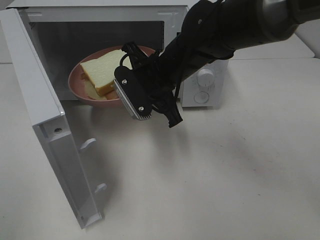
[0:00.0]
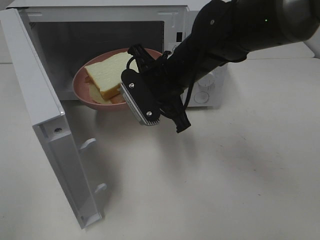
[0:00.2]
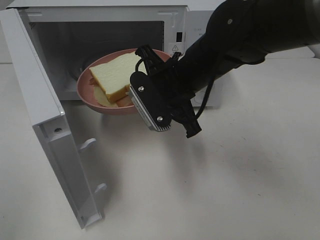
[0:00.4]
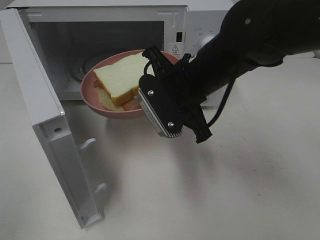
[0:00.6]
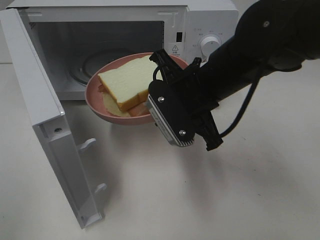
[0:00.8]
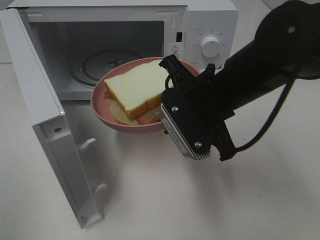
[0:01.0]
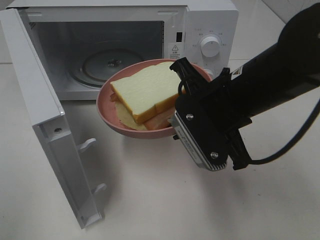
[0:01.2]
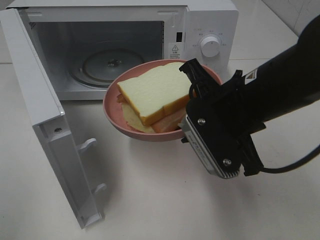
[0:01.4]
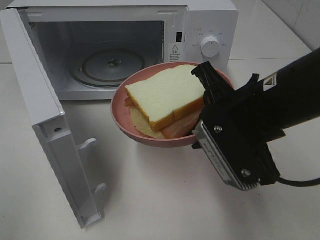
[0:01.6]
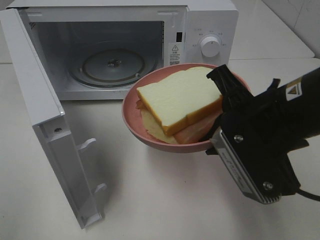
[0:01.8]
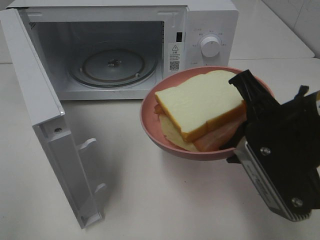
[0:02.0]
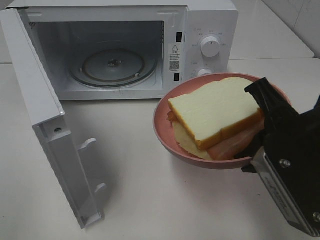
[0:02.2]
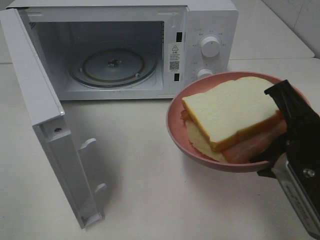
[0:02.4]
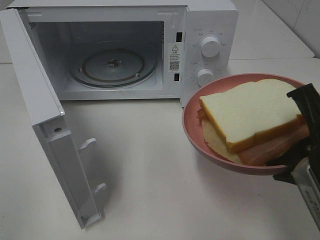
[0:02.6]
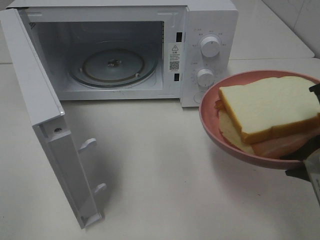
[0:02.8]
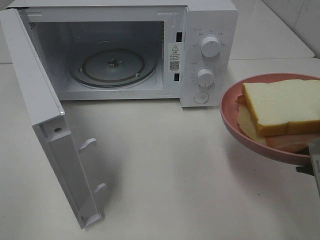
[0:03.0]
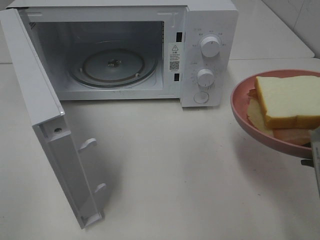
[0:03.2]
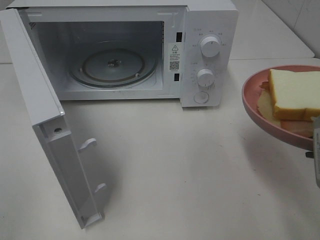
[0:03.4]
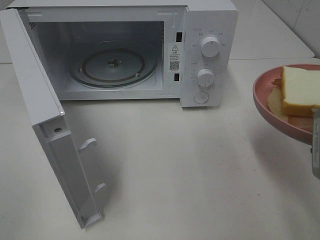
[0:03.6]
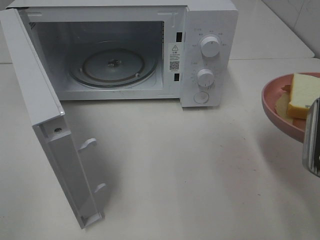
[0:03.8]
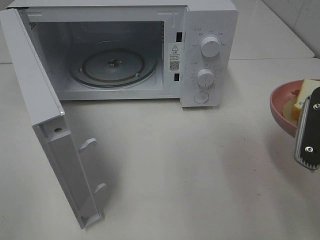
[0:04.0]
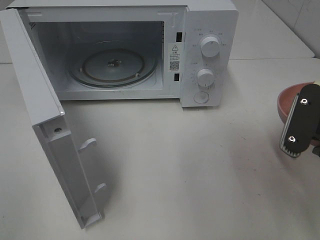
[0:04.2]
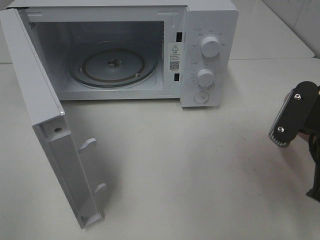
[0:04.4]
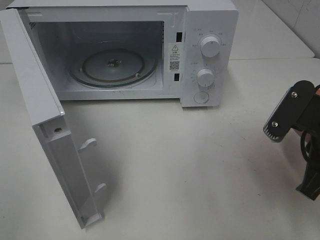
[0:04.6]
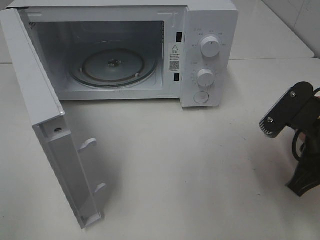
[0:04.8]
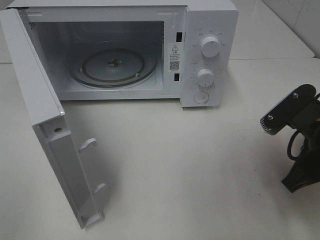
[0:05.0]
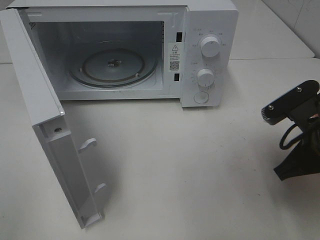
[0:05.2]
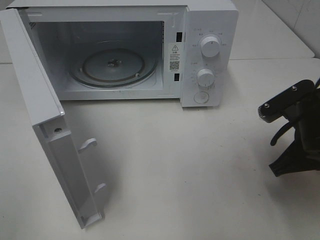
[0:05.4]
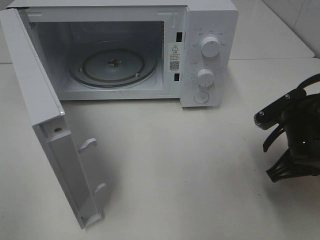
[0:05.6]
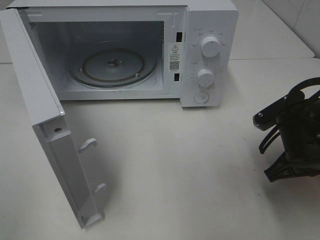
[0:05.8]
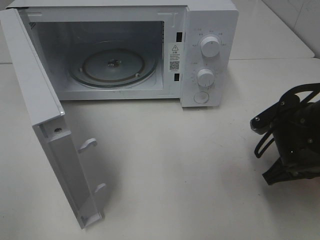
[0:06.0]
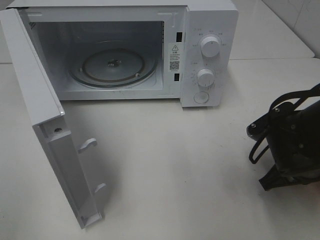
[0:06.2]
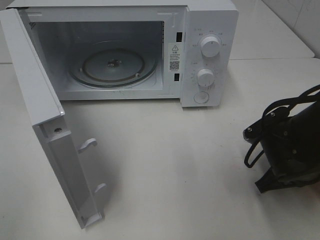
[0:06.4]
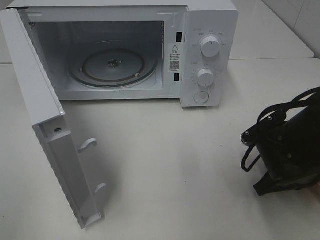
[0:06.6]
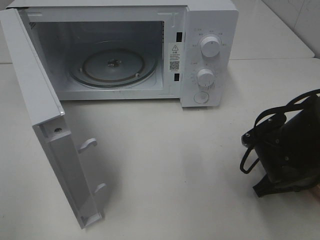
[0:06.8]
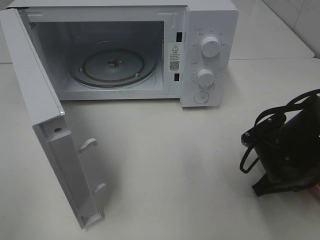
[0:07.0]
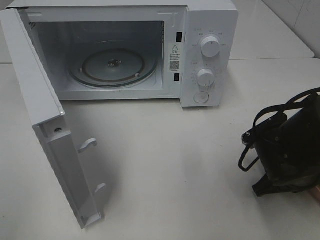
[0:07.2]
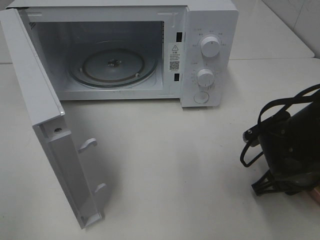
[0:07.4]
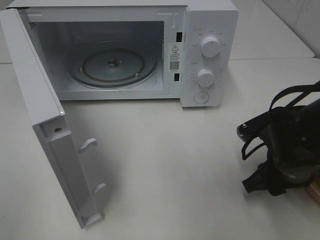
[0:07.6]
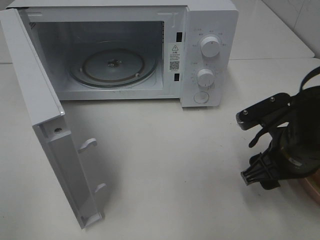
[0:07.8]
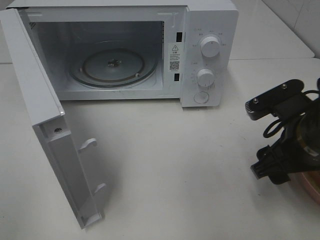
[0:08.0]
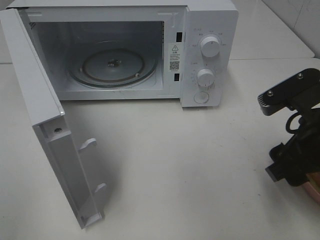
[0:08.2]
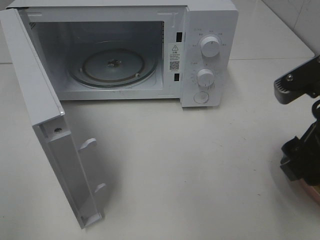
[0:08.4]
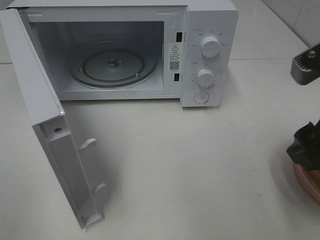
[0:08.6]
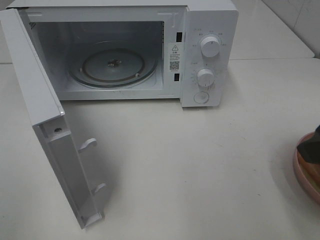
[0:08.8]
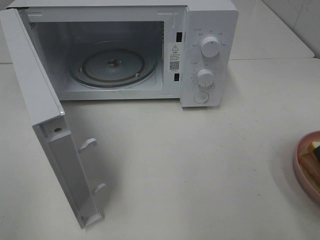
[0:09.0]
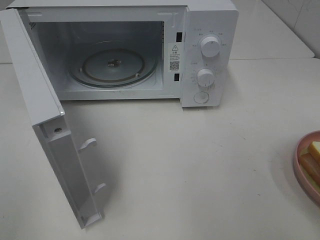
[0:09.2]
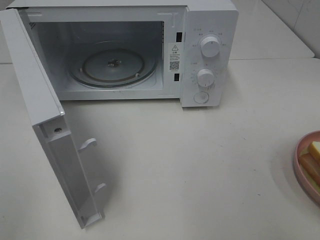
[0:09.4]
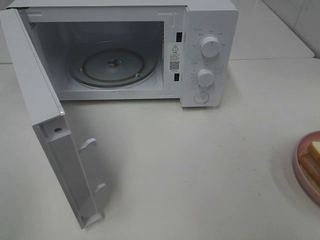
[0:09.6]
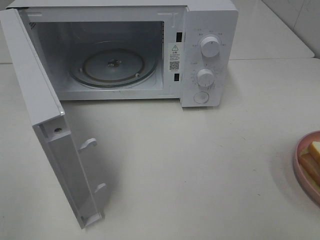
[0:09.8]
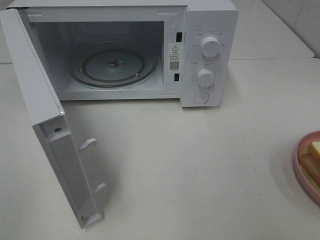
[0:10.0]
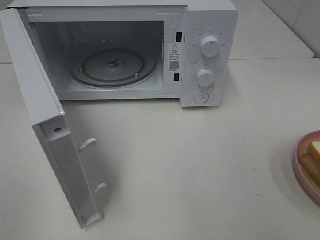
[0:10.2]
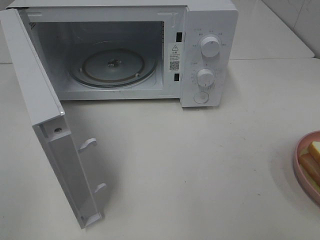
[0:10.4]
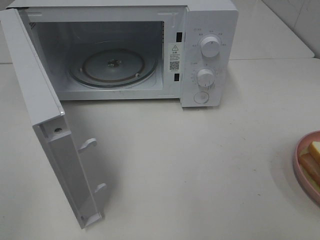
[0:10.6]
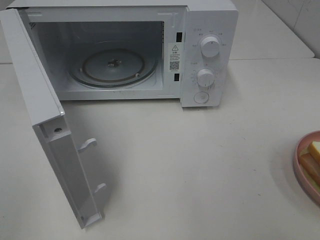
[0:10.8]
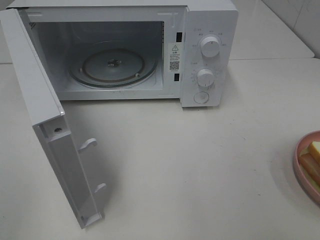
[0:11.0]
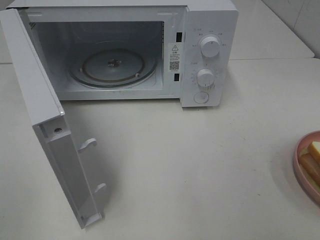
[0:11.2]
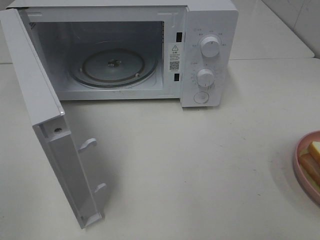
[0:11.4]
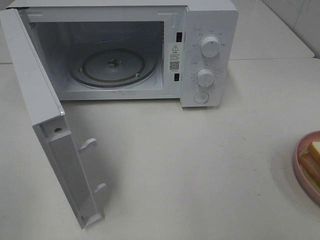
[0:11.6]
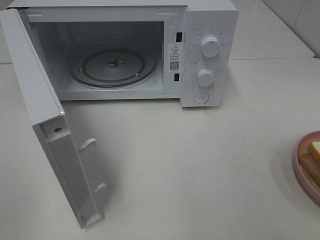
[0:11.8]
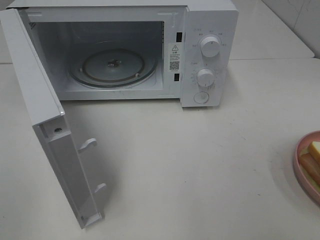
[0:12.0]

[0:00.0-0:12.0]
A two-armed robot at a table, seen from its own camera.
Task of the whole recording: Heat Sandwich.
Step, 0:00.0 to 0:08.0: Right hand: place the plate on the table.
0:00.0 to 0:01.6: The right gripper moves backward and to the right, roughly 15 cm.
0:01.6 to 0:03.0: The right gripper heads to the right and backward, covering about 10 cm.
0:03.0 to 0:04.4: The right gripper moves approximately 5 cm.
0:04.4 to 0:06.0: The right gripper is displaced downward by approximately 10 cm.
0:06.0 to 0:07.6: The right gripper opens its fingers.
0:07.6 to 0:09.0: The right gripper is displaced upward and backward by approximately 20 cm.
0:10.4 to 0:12.0: The two grippers keep their place.

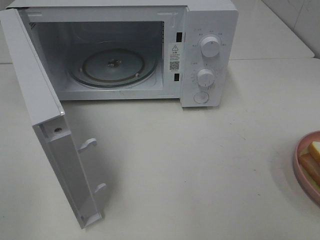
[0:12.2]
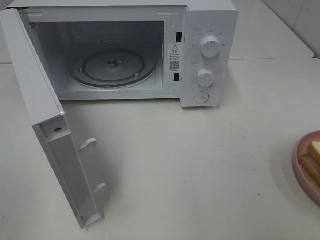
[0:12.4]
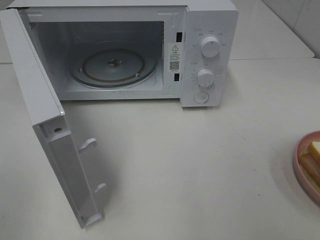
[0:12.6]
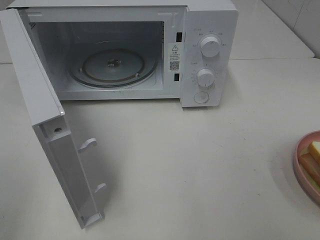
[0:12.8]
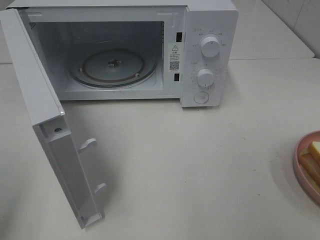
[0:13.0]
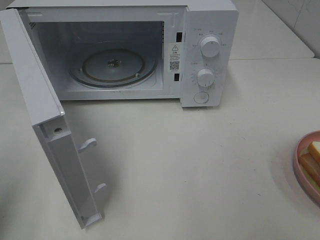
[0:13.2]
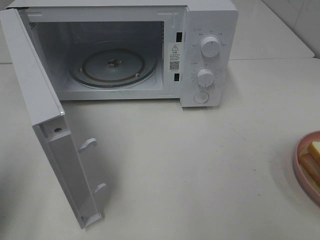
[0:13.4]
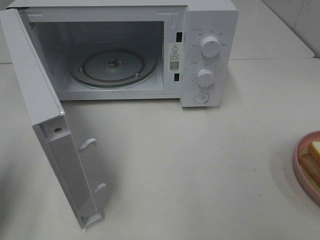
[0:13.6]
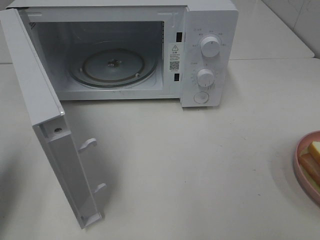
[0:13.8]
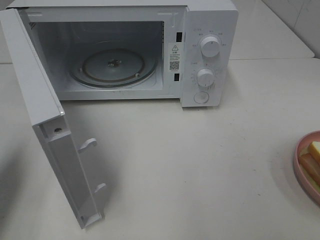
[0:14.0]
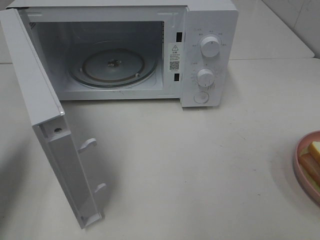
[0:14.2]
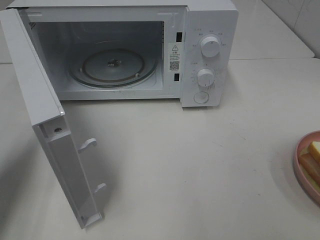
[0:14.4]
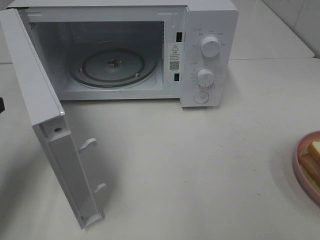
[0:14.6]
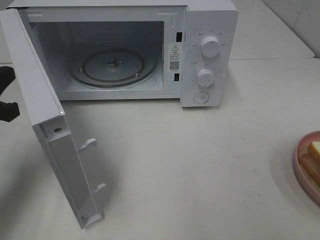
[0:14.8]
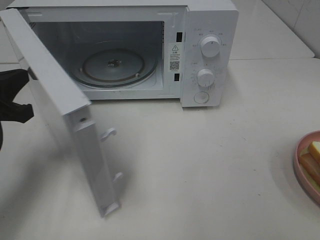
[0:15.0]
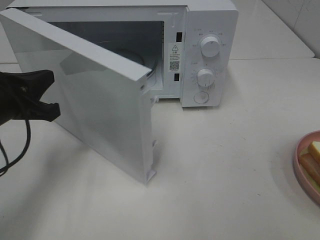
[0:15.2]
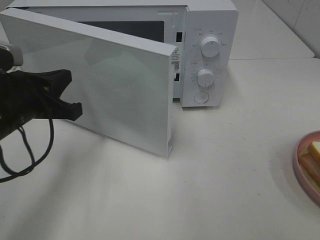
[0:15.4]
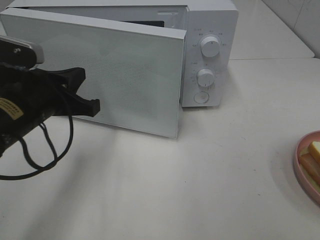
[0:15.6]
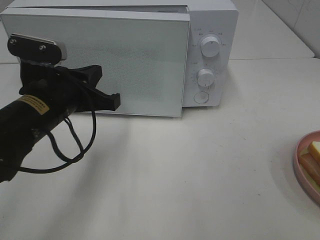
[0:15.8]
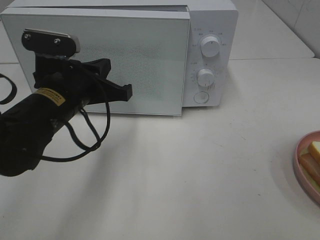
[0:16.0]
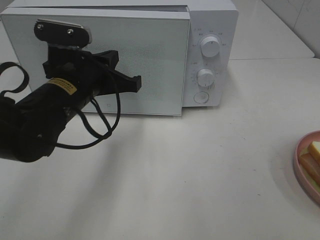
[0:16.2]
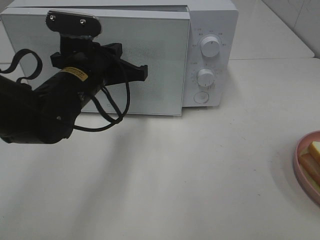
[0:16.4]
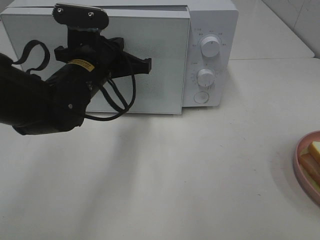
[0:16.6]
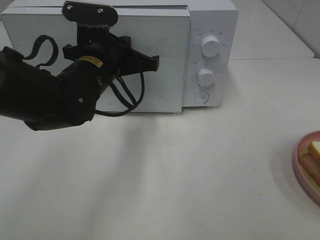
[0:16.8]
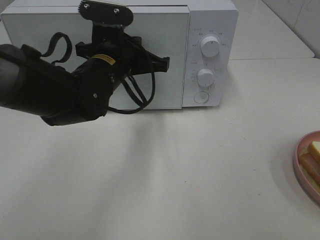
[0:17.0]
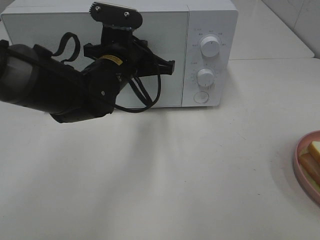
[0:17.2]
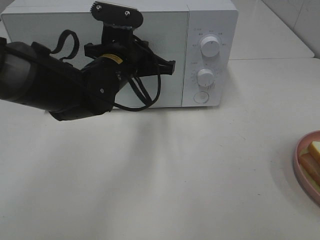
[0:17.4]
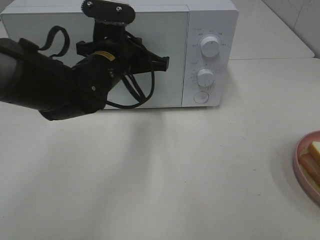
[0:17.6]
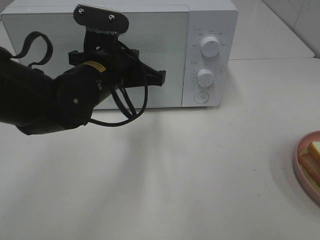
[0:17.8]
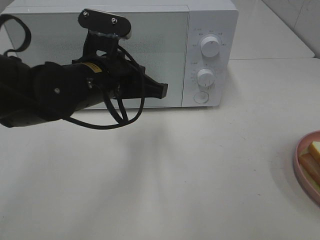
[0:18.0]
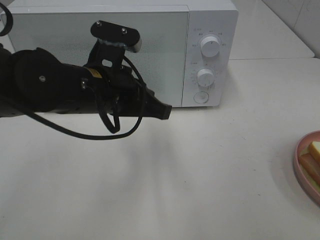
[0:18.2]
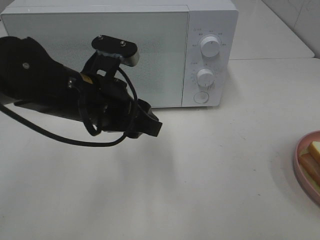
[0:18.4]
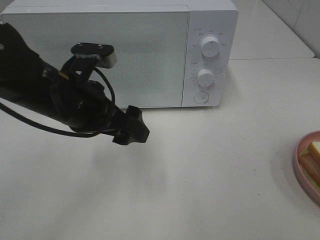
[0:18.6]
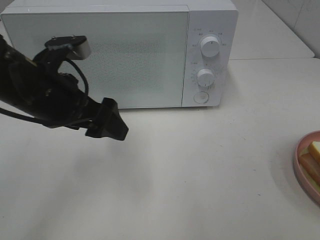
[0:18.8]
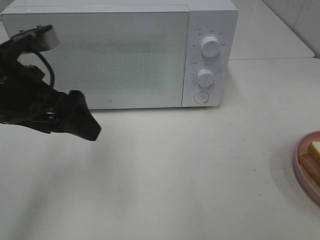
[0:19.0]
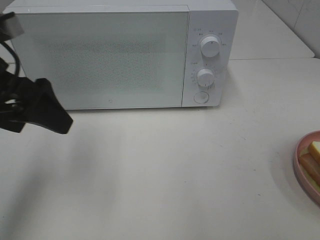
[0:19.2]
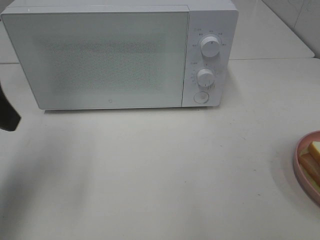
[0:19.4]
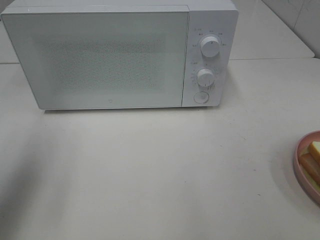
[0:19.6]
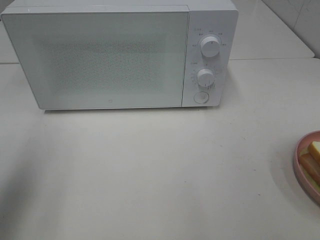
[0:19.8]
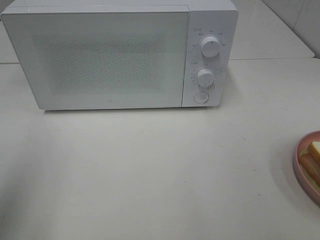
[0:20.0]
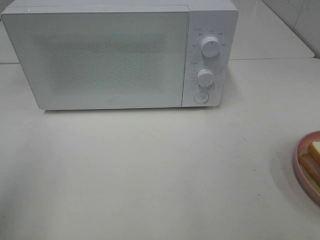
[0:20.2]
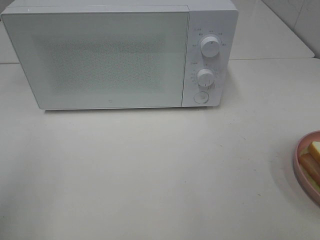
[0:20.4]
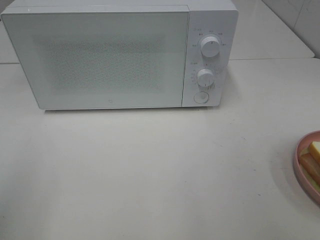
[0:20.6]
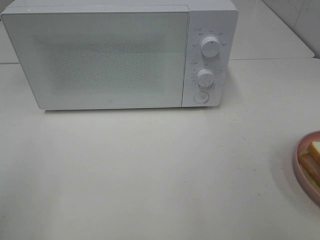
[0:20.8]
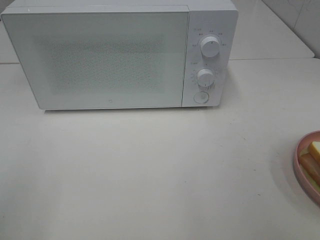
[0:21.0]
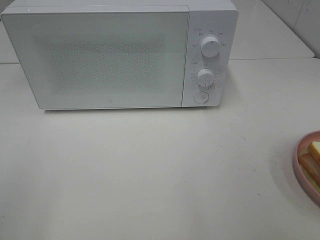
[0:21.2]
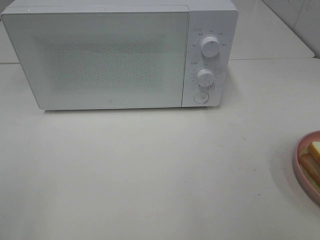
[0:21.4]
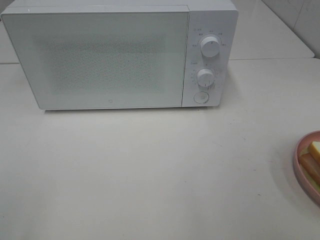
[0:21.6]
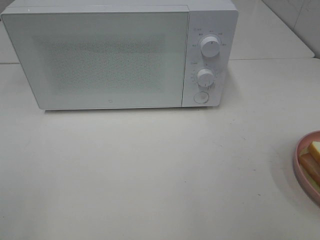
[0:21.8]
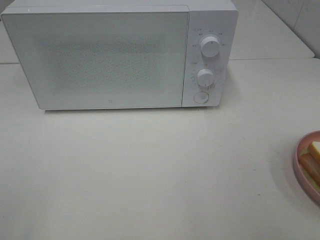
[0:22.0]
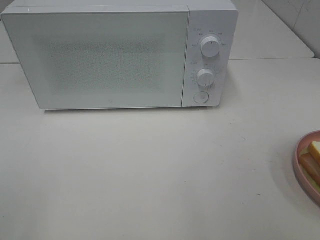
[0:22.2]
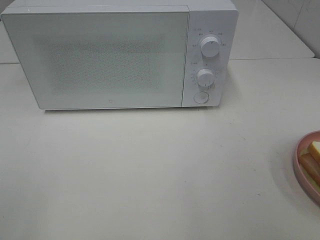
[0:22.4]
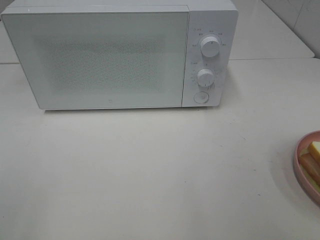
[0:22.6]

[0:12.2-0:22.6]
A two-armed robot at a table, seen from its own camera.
Task of the whole recording: Heat Sandwich.
Step, 0:12.2 to 0:18.4: Left hand: close the microwave door.
0:12.2 to 0:13.6: The left gripper is displaced forward by approximately 15 cm, and closes up.
0:13.6 to 0:15.2: The left gripper travels forward, to the right and downward by some 15 cm.
0:15.2 to 0:16.6: The left gripper shifts roughly 15 cm to the right and forward.
0:16.6 to 0:18.2: The left gripper is displaced backward by some 5 cm.
0:18.2 to 0:19.6: The left gripper shifts approximately 25 cm to the left and upward, and opens its fingers.
0:19.6 to 0:21.2: The left gripper is displaced backward by some 15 cm.
